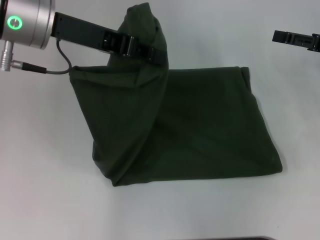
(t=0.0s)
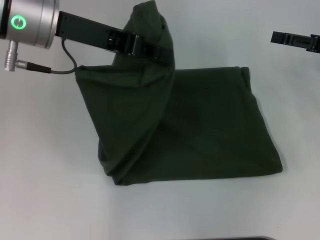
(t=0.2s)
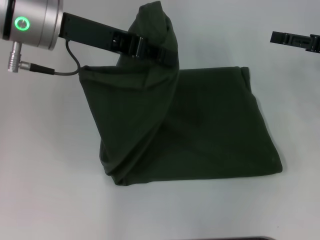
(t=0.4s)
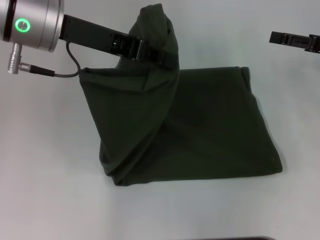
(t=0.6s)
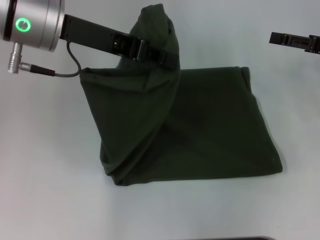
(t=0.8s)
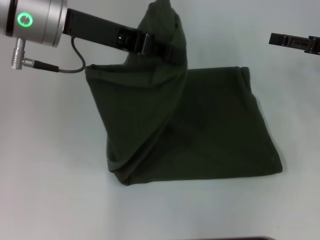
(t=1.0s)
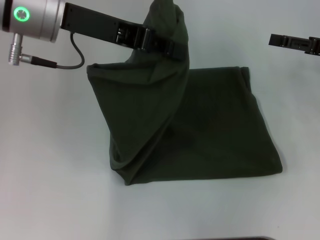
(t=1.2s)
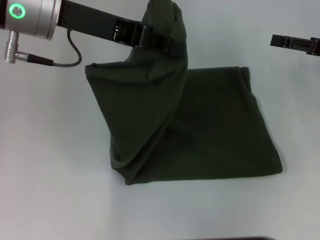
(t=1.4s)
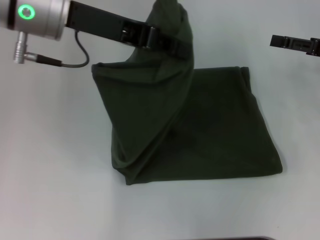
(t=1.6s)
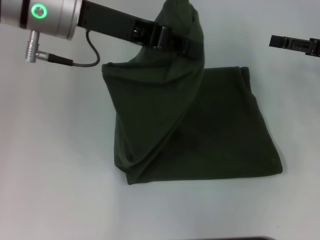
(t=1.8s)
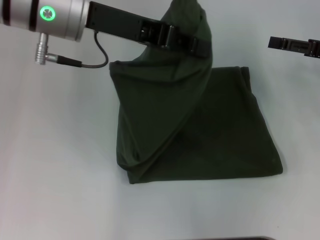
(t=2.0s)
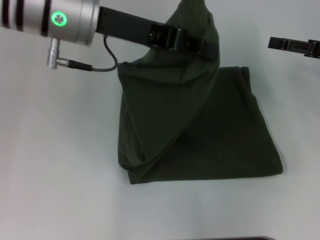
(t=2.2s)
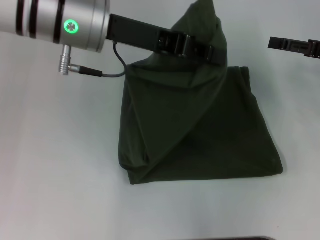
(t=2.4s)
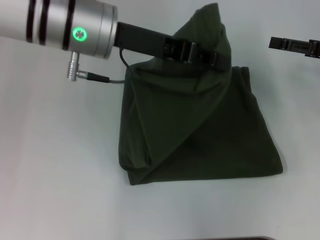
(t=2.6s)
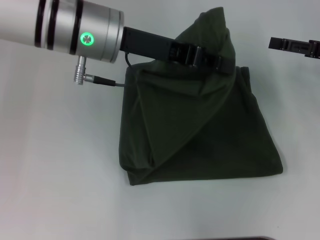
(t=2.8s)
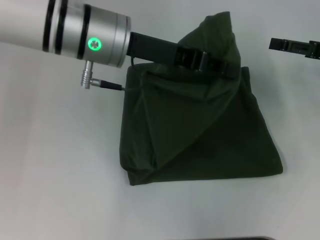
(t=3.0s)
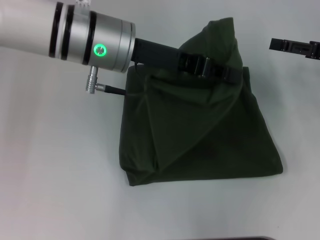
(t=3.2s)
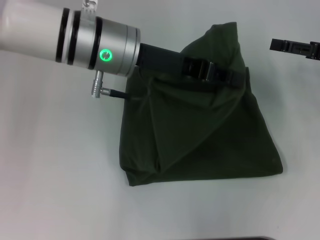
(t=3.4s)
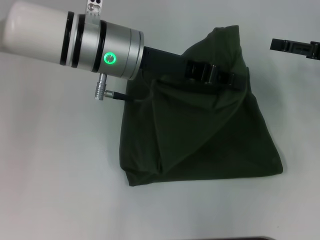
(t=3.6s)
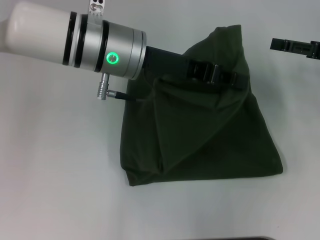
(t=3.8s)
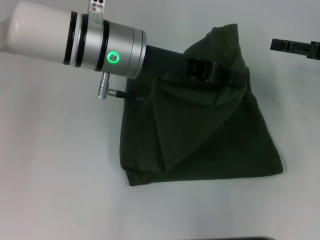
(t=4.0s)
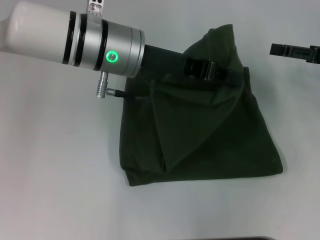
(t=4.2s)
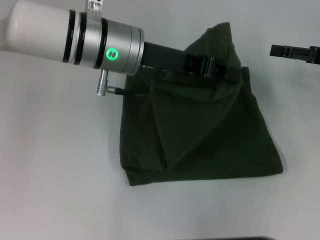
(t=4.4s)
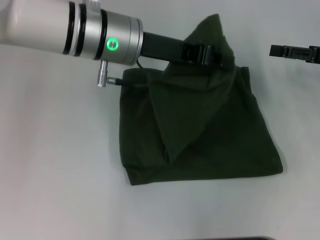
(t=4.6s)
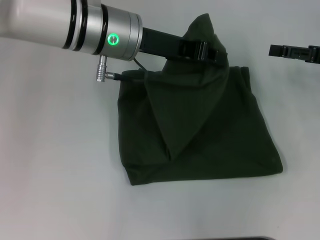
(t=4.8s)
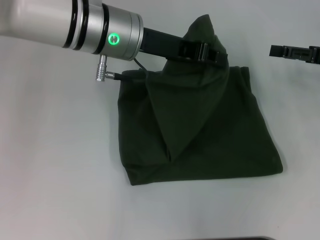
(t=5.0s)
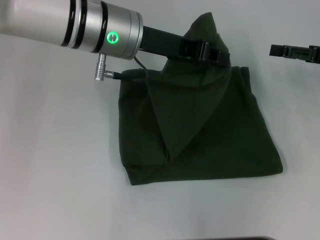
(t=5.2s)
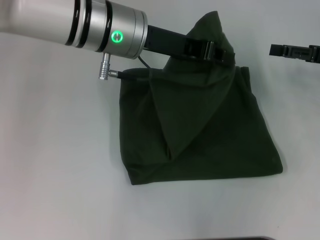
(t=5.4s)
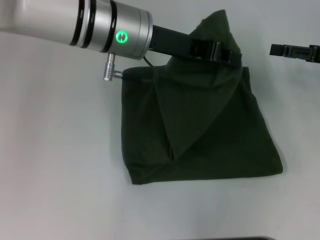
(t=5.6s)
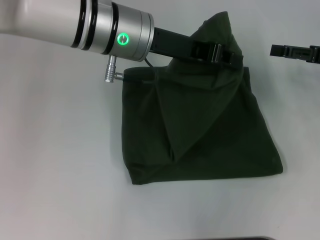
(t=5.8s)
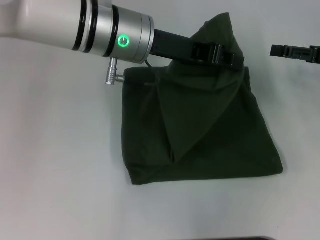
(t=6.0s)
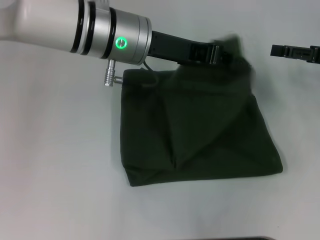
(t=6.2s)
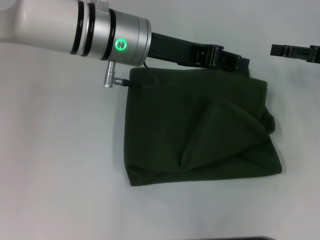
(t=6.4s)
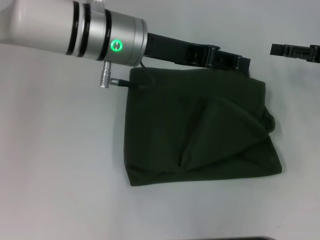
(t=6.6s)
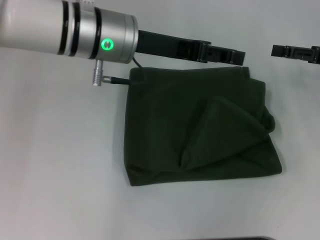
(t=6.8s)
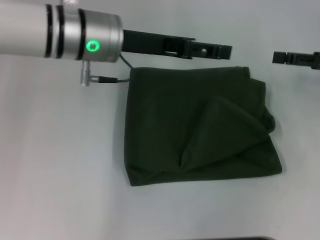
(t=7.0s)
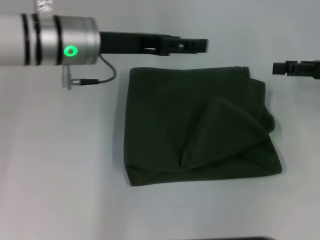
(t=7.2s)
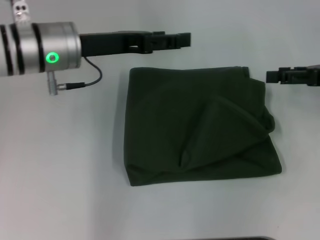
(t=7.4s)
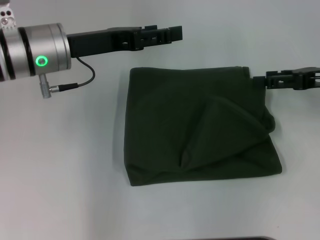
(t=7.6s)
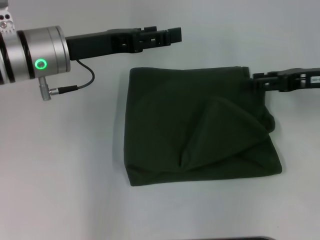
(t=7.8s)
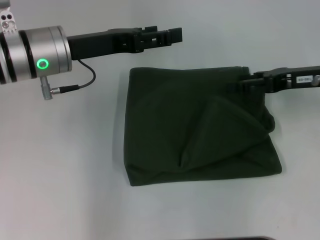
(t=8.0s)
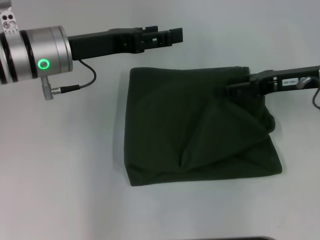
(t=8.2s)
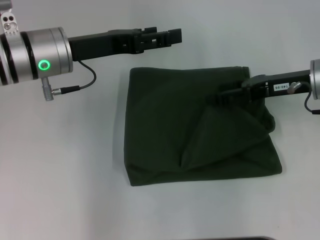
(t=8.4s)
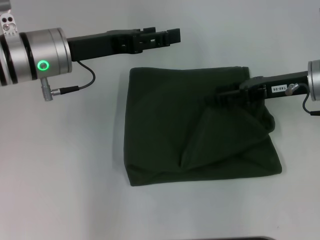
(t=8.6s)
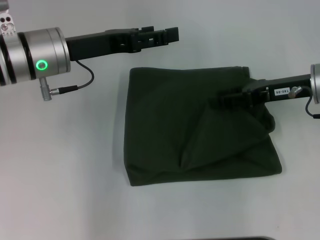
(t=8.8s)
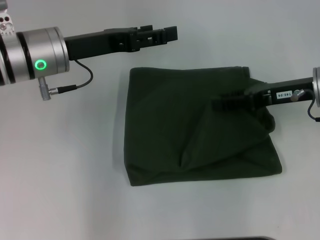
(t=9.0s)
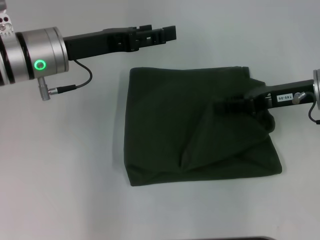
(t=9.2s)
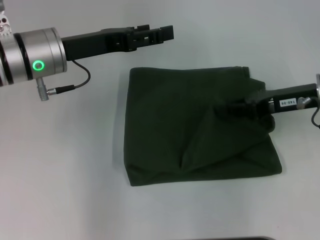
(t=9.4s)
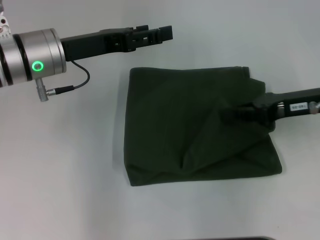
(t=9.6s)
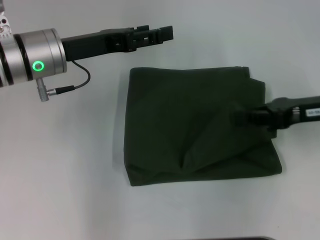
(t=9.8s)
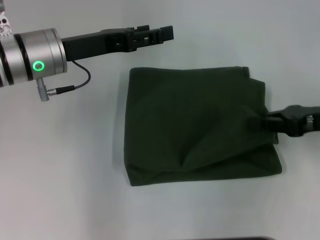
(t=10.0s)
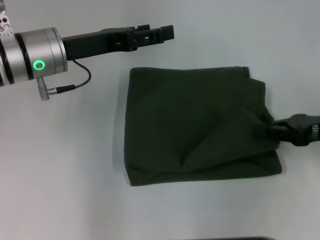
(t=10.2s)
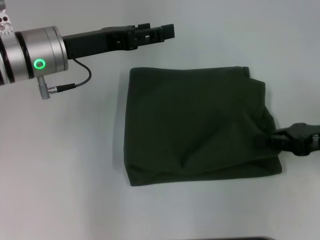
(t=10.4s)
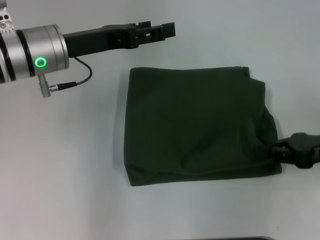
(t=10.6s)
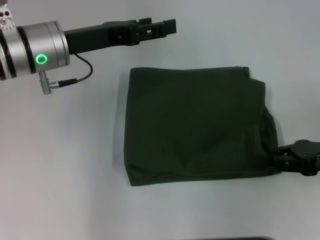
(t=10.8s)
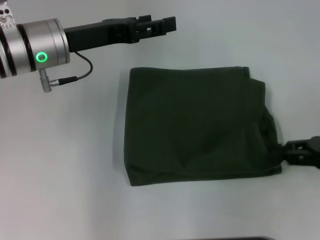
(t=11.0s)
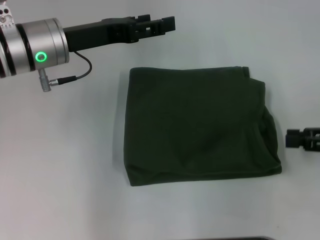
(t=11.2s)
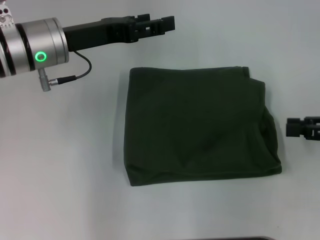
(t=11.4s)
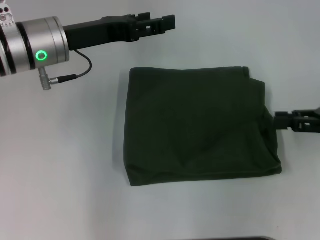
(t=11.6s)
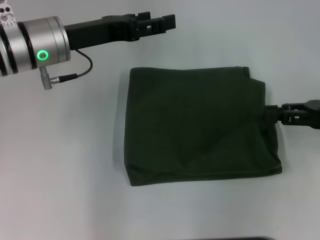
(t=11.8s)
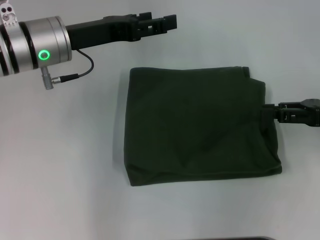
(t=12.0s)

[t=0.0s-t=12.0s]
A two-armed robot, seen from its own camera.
Step, t=0.0s to t=6.6s: Fold the clothes with your left hand.
t=0.0s to t=1.6s: The grippers make only small movements.
t=1.6s to t=3.0s: The left gripper shifts about 5 cm to the right.
t=3.0s to t=6.0s: The grippers stay close to where they were, moving slightly.
t=6.0s to t=7.6s: The left gripper shifts some 10 cm to the left, and opens its fingers.
t=7.6s to t=9.0s: The right gripper goes some 5 cm to the left, and closes.
t=9.0s to t=10.4s: The right gripper shifts roughly 10 cm backward and to the right, and closes.
t=10.4s to t=12.0s: The right gripper opens its fingers.

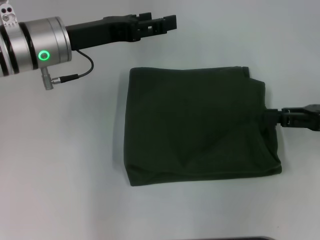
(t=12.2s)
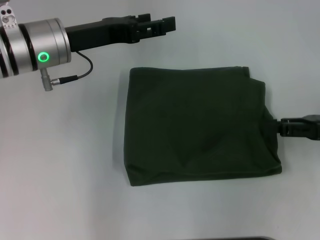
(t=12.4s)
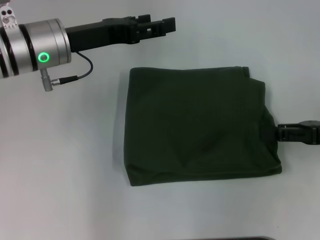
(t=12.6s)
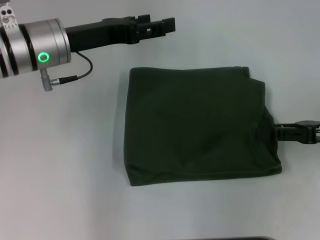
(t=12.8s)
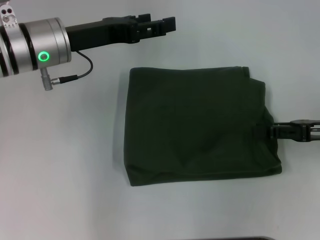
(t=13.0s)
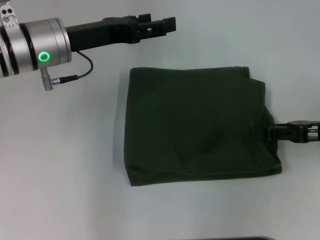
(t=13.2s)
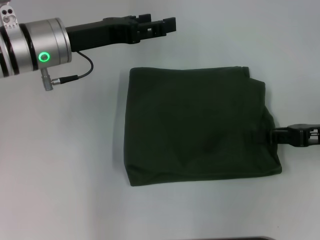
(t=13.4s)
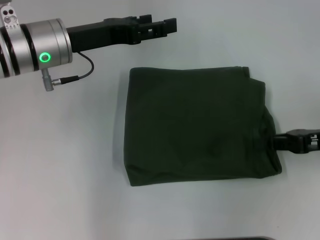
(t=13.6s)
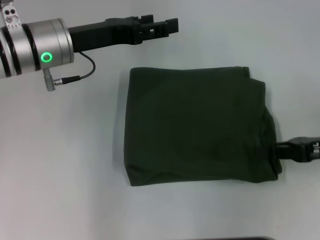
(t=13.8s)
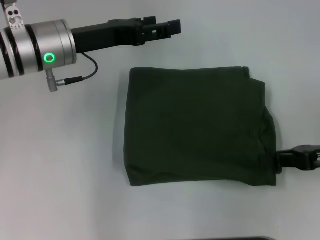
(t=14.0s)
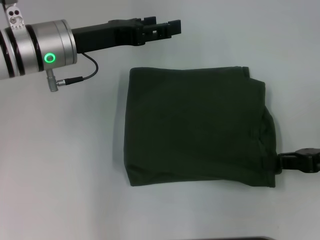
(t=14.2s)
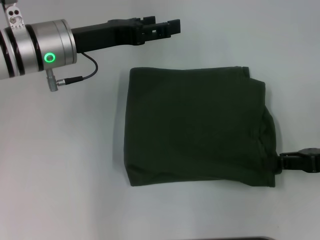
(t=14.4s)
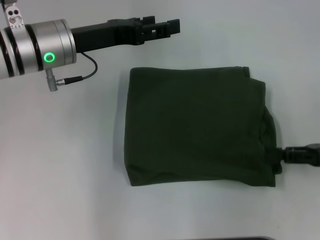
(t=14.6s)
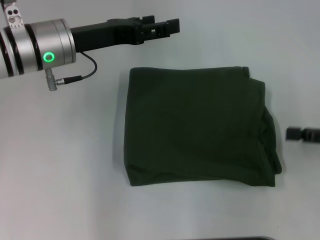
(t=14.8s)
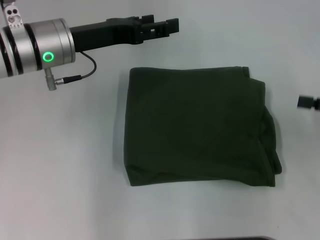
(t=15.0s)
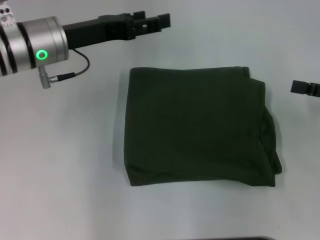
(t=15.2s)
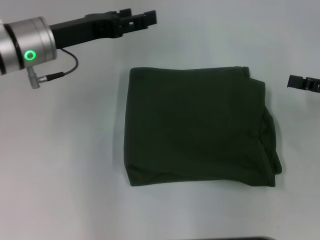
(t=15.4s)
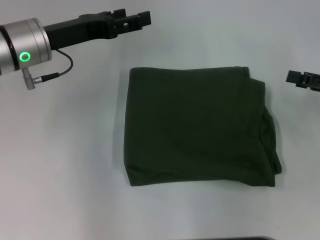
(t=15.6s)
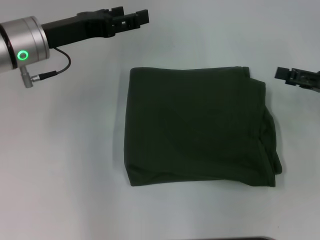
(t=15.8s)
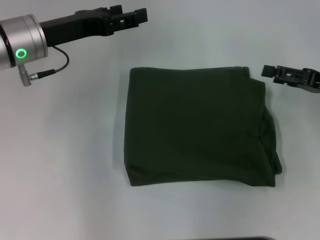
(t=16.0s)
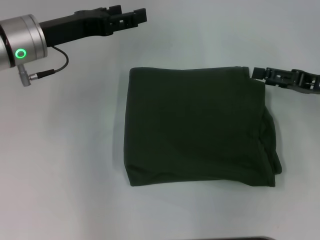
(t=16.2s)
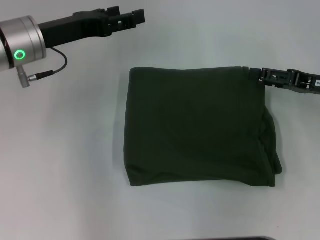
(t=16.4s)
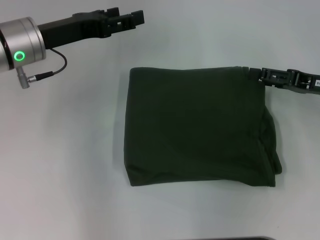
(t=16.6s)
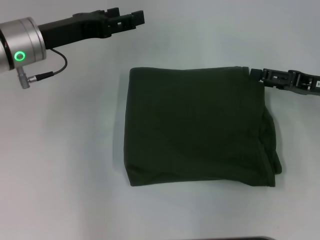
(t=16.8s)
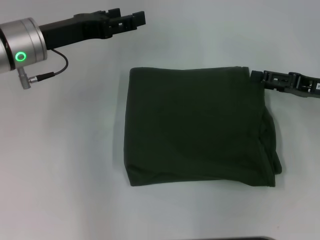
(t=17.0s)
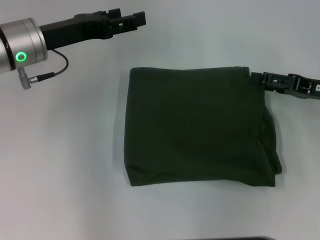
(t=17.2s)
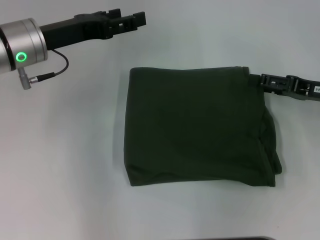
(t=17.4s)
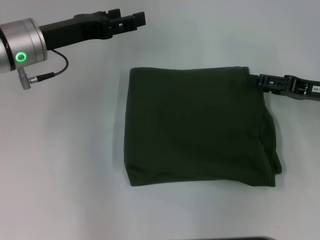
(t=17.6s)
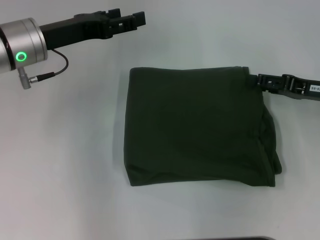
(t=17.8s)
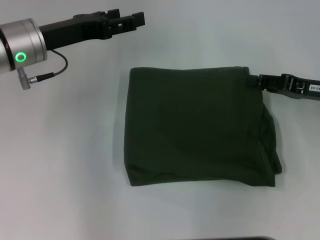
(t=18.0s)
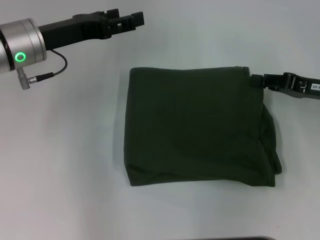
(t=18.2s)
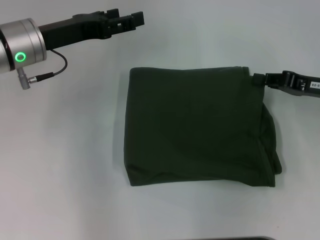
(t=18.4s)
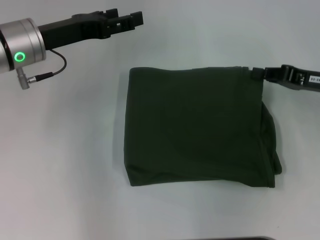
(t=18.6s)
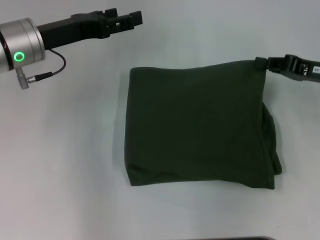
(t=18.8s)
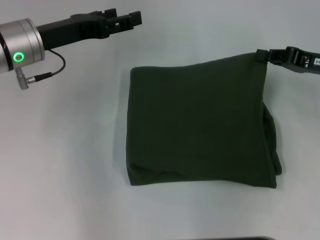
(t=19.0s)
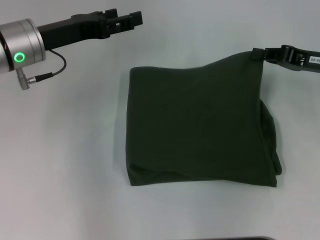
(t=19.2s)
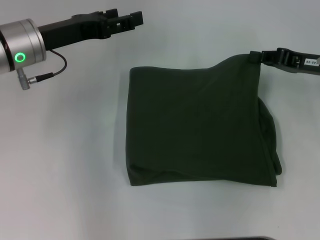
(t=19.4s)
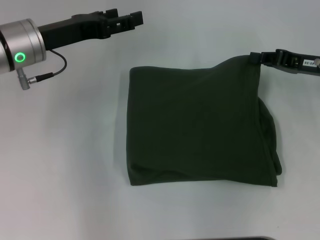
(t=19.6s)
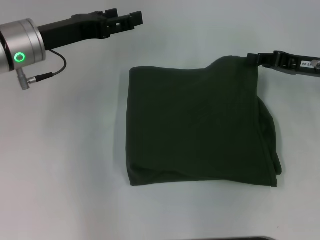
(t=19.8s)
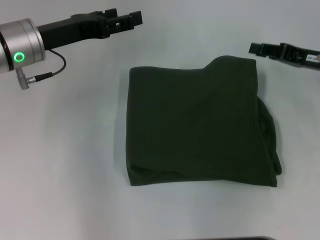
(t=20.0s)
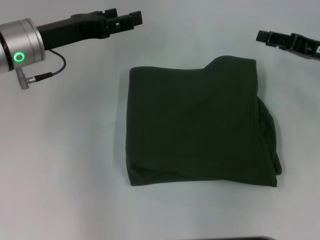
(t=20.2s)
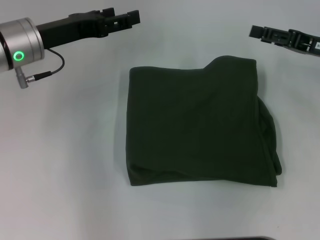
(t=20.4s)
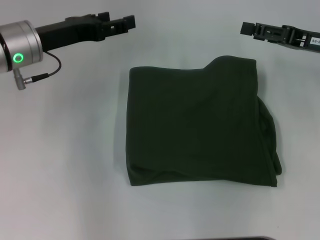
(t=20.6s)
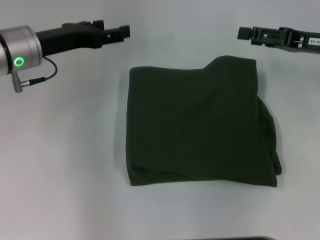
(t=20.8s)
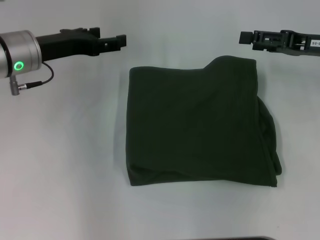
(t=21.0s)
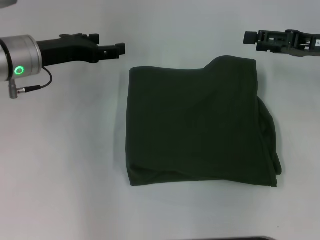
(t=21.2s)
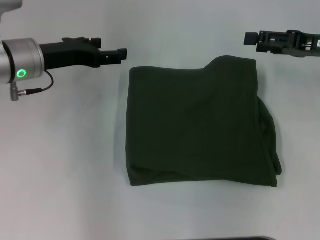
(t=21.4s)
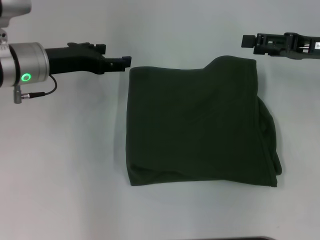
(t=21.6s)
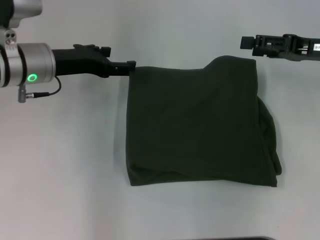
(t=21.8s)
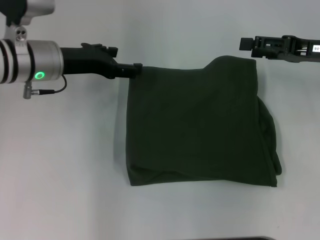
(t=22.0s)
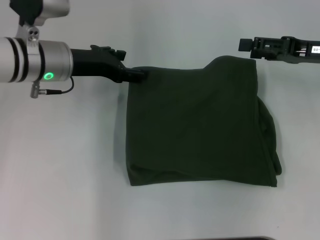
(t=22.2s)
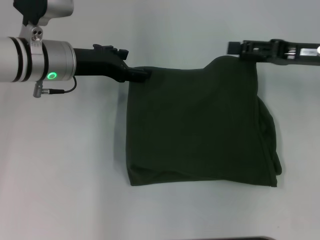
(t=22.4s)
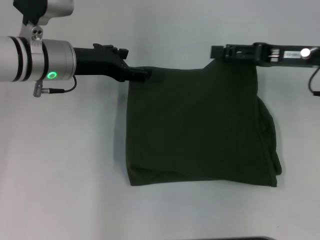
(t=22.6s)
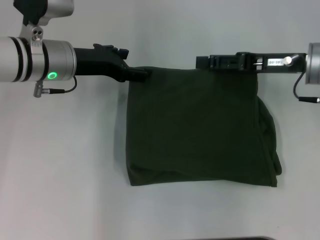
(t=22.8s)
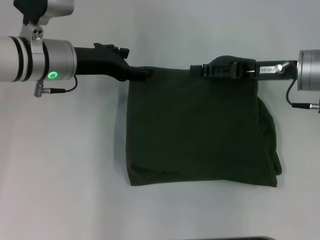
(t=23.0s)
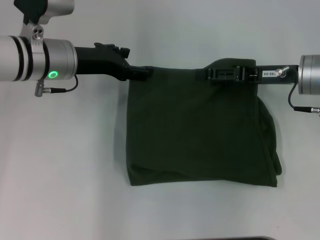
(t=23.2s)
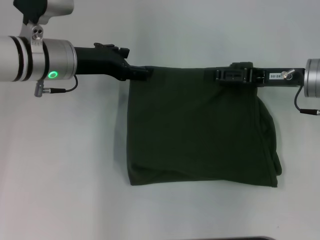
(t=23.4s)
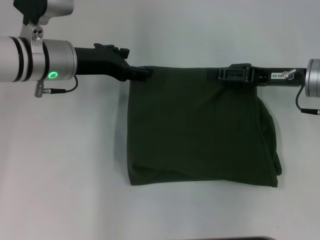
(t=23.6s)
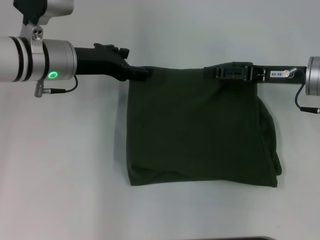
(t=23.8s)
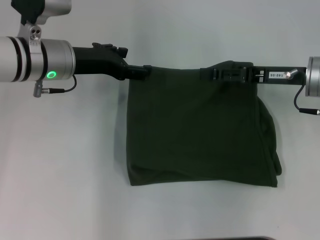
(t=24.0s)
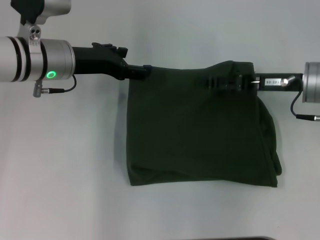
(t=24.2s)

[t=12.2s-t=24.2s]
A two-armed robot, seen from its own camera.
t=12.2s to t=13.8s: The right gripper closes up.
t=13.8s to t=15.2s: The right gripper travels to the right by some 5 cm, and opens its fingers.
t=15.2s to t=16.6s: The right gripper shifts by about 5 cm.
t=16.6s to t=18.2s: The right gripper closes.
t=18.2s to t=19.8s: The right gripper closes its fingers.
t=19.8s to t=21.2s: The right gripper opens up.
t=21.2s to t=22.6s: The grippers make only small movements.
t=22.6s to t=24.2s: The grippers make only small movements.
